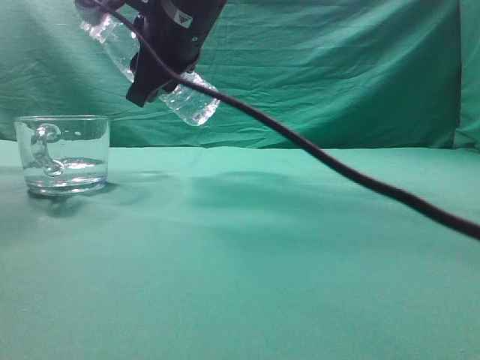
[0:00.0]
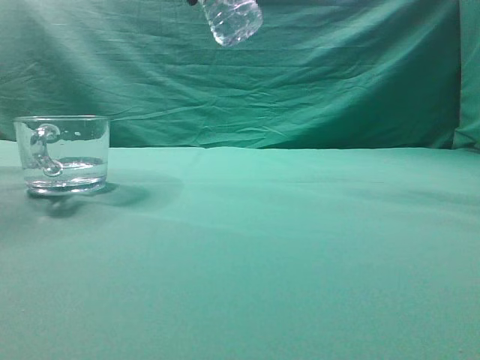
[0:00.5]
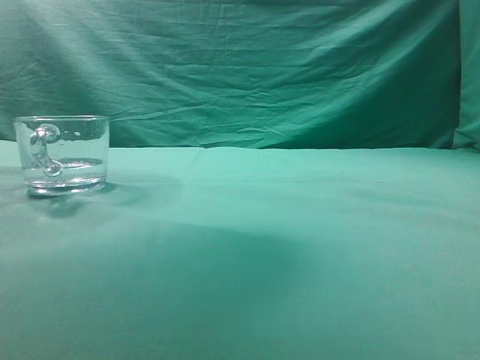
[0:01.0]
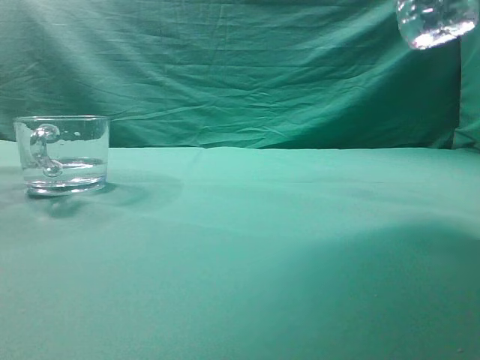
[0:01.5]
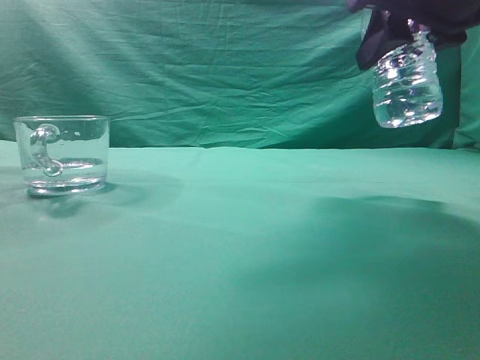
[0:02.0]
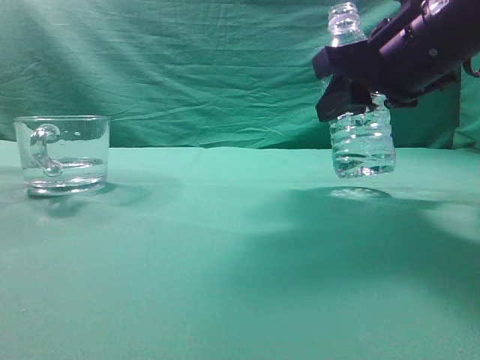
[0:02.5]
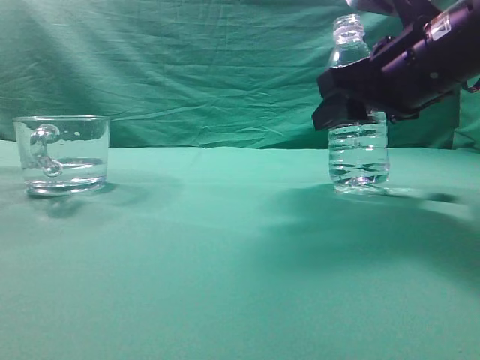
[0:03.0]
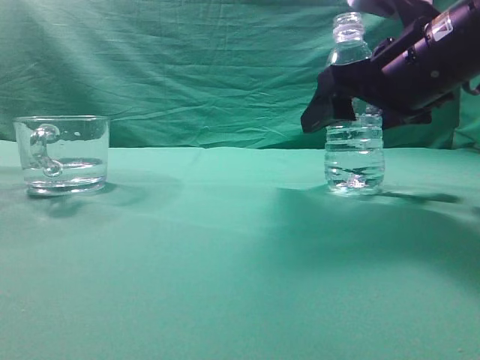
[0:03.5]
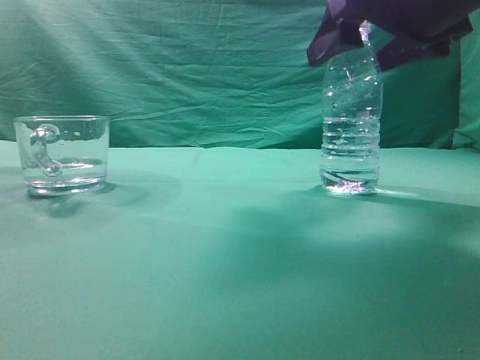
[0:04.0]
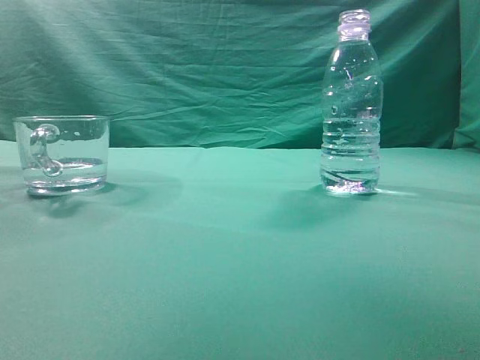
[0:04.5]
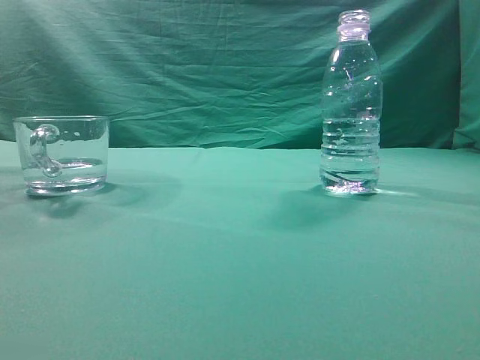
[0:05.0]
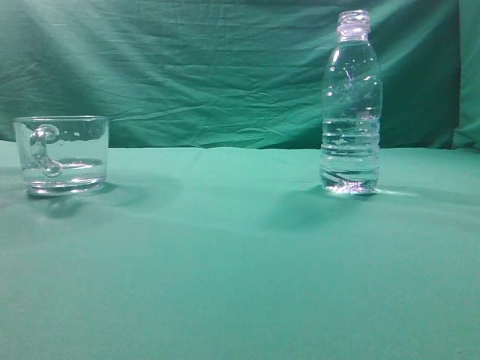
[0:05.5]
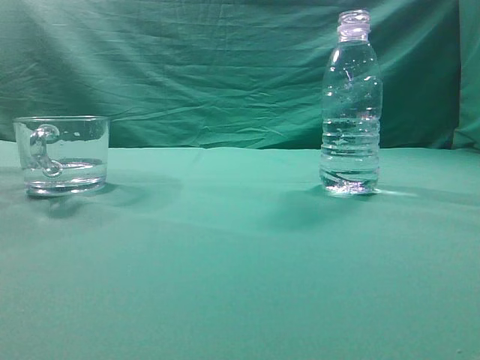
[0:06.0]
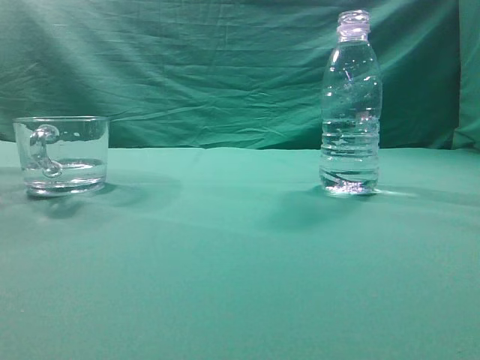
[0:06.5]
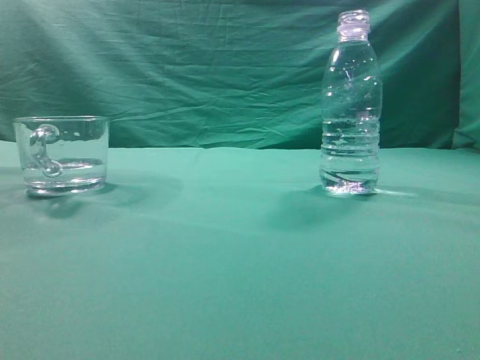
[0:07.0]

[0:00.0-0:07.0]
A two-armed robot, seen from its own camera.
Task of the whole recording: pick up the water bottle and pour the water in it into the glass.
0:00.0 to 0:02.0: The right gripper is displaced to the right by about 25 cm.
0:02.0 to 0:03.5: The right gripper is displaced downward by roughly 5 cm, and opens its fingers.
0:03.5 to 0:05.0: The right gripper is displaced upward and backward by some 30 cm, and closes its fingers.
